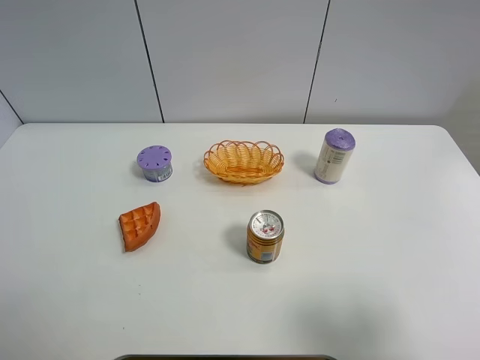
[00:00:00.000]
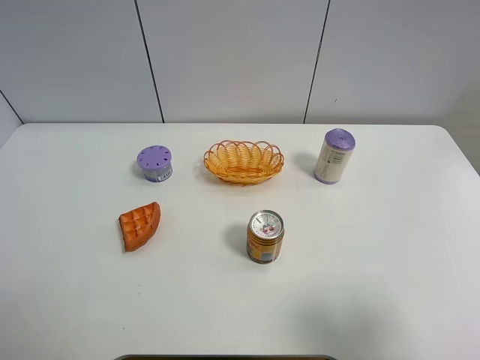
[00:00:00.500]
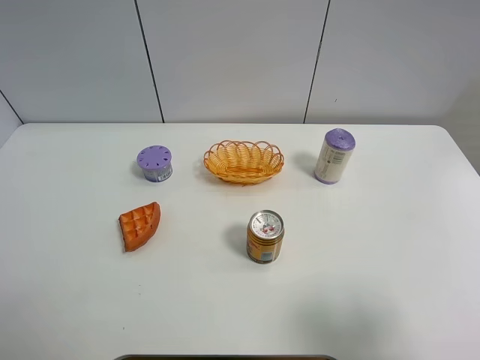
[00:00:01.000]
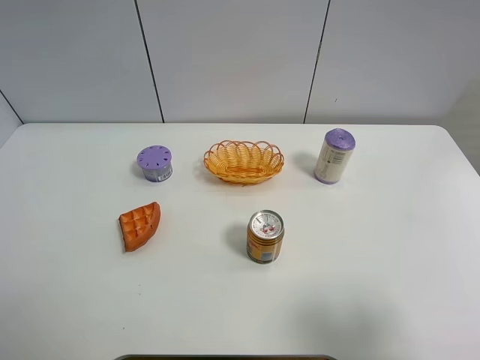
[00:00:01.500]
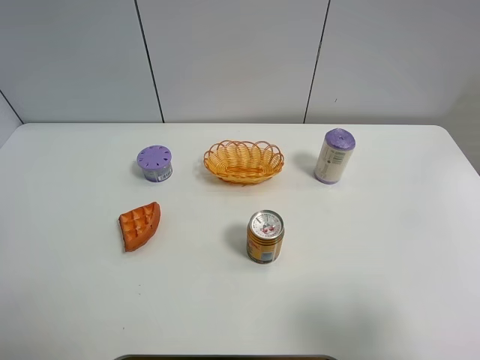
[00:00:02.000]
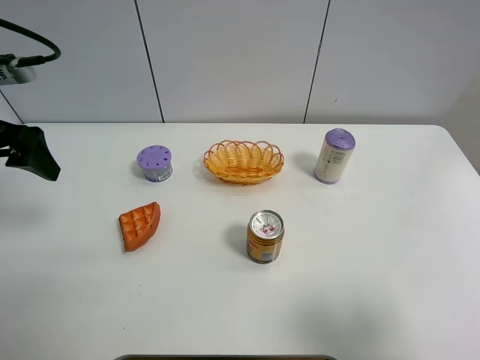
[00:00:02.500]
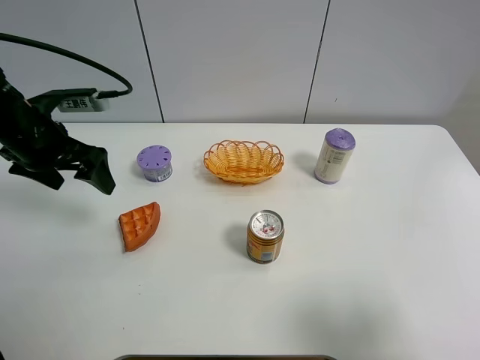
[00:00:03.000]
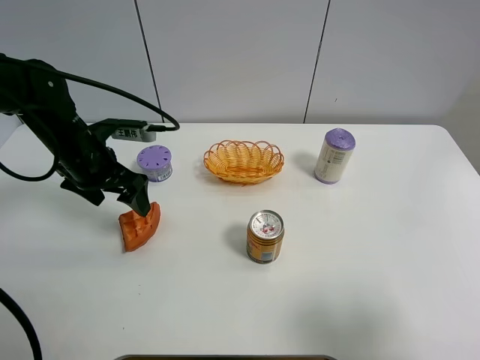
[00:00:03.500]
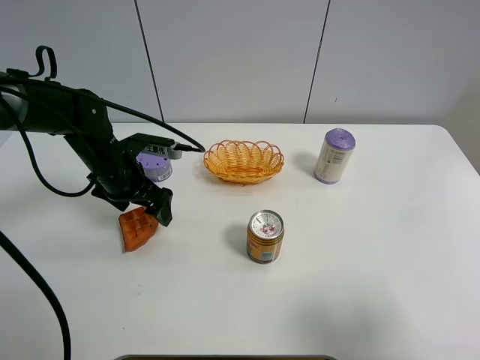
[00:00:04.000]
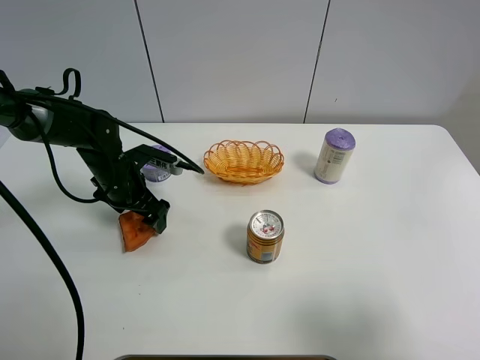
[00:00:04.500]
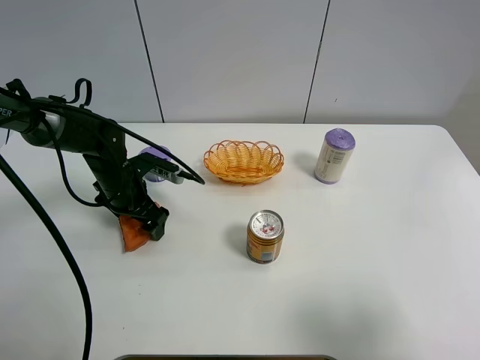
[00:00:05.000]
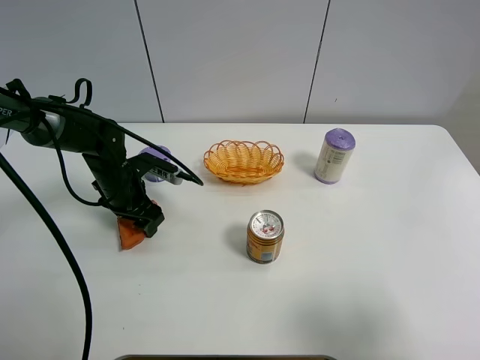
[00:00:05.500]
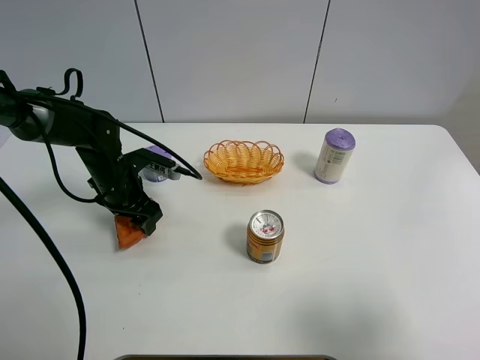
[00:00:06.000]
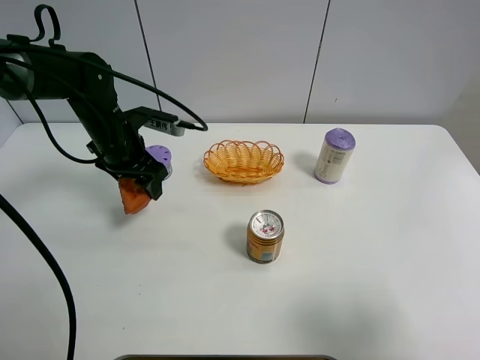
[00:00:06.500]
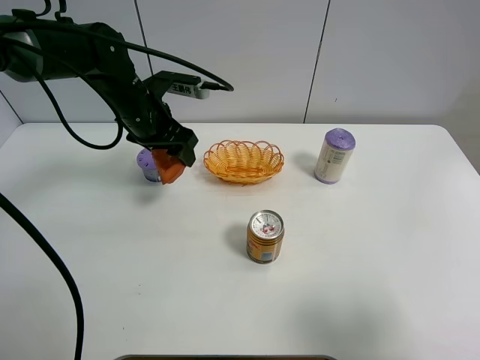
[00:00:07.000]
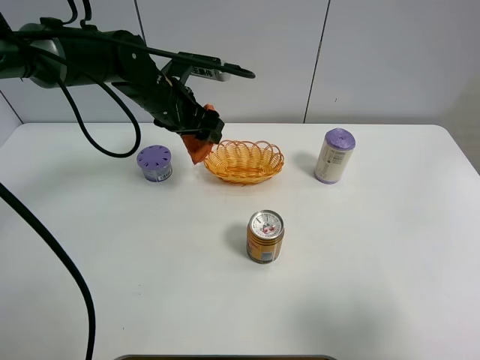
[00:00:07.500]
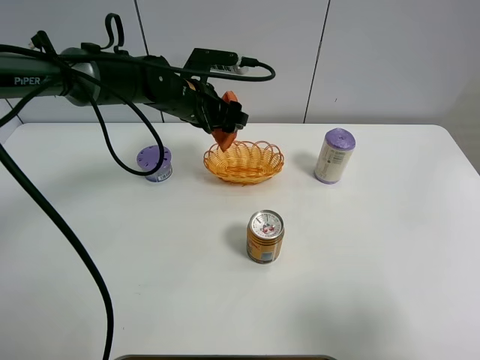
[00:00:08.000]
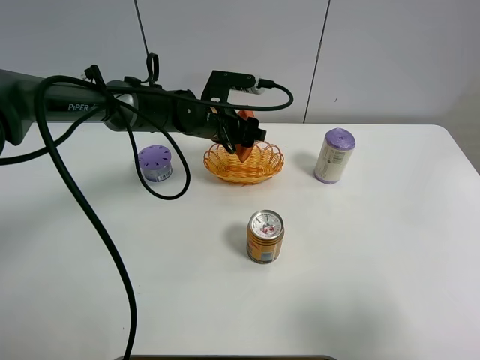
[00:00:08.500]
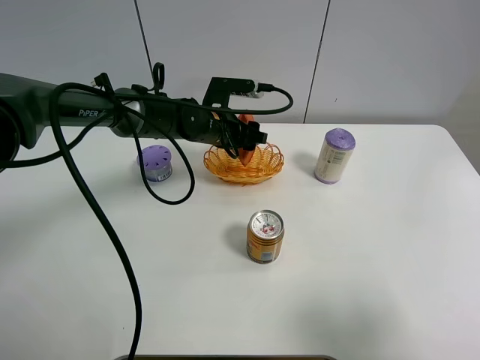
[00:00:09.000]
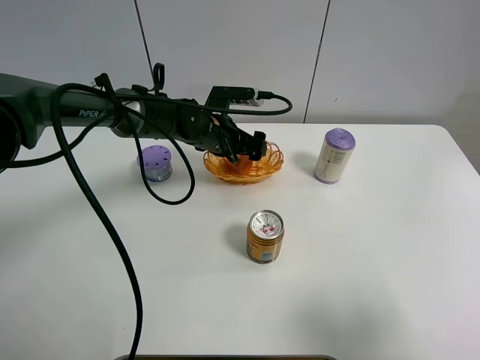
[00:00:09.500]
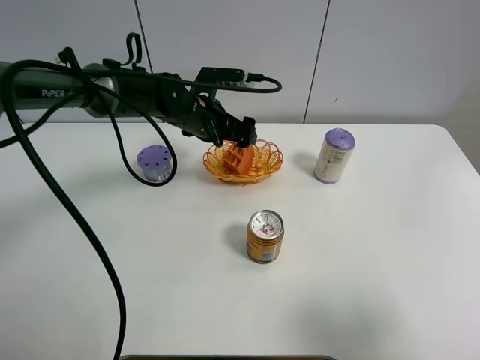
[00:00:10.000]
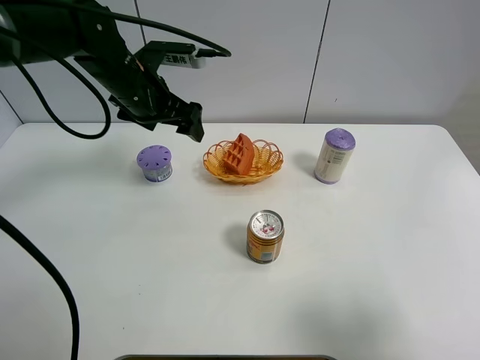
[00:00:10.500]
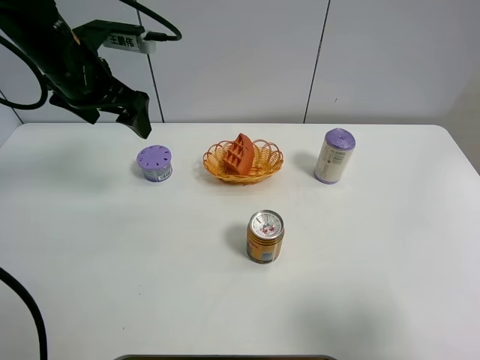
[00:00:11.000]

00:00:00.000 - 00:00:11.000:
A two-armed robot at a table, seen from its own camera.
Task of the whole recording: Put the bakery in the basket.
00:00:02.000 - 00:00:03.500: The left gripper goes some 25 cm forward, downward and to the right.
00:00:03.500 - 00:00:05.500: The left gripper travels downward by approximately 10 cm, and closes.
00:00:05.500 - 00:00:07.500: The left gripper heads upward, to the right and forward, covering approximately 15 cm.
00:00:07.500 - 00:00:09.000: The left gripper is displaced downward and to the right by some 10 cm.
00:00:09.000 - 00:00:11.000: The left gripper heads to the left and upward, covering approximately 25 cm, and opens.

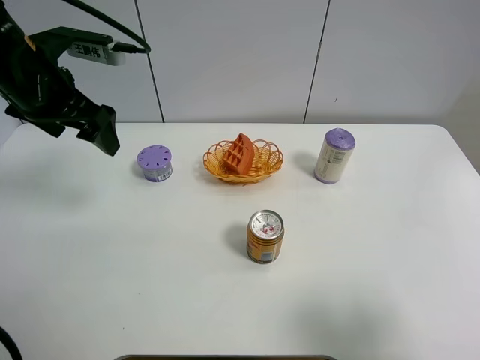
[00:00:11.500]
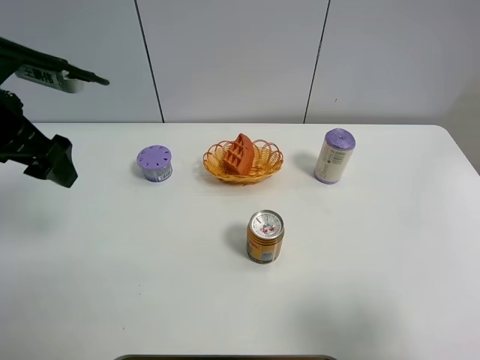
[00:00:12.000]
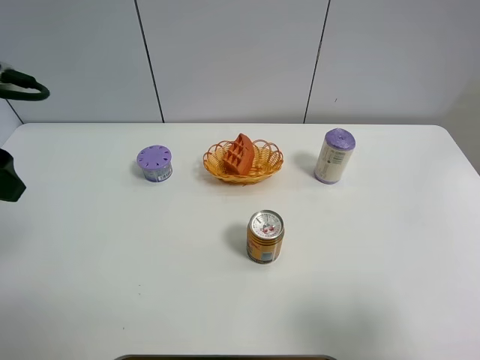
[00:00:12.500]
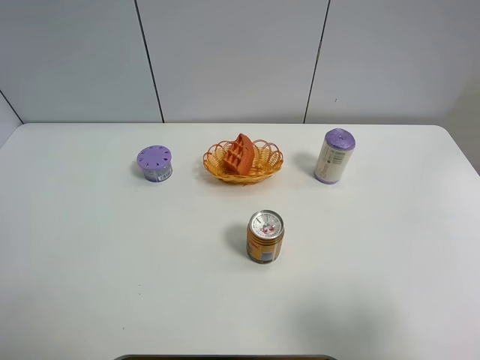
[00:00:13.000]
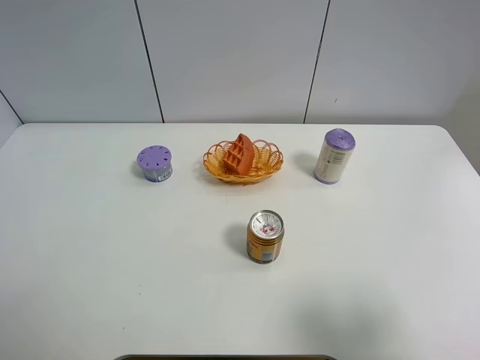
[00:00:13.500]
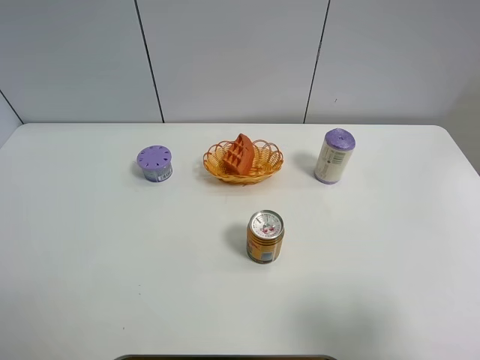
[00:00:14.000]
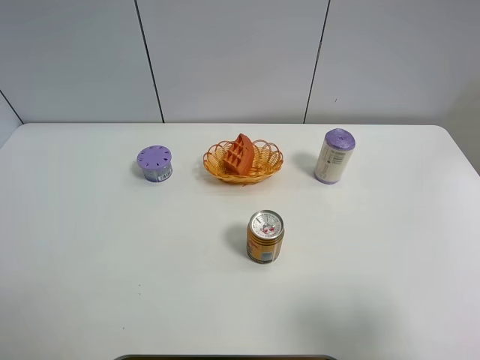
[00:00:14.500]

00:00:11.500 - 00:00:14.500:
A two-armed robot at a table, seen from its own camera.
Task of the whole recording: Put the bakery in the basket.
00:00:11.500 - 00:00:13.000: The left gripper is displaced backward and to the left by some 20 cm.
